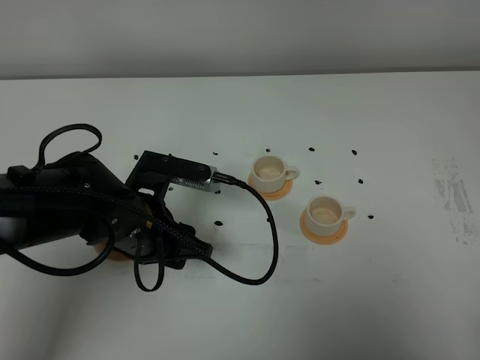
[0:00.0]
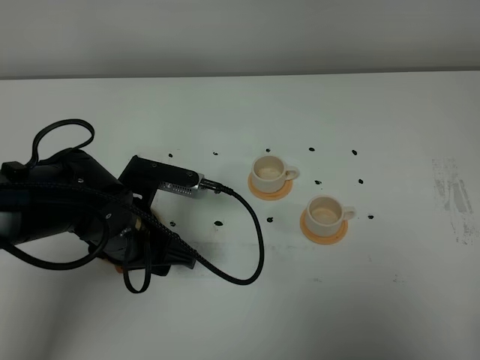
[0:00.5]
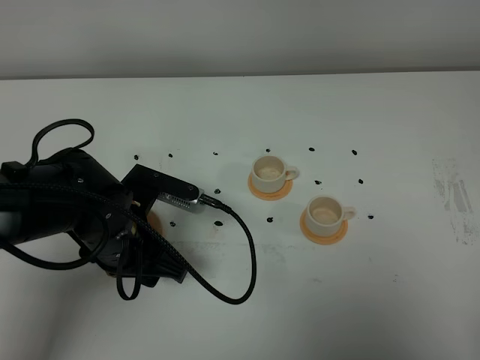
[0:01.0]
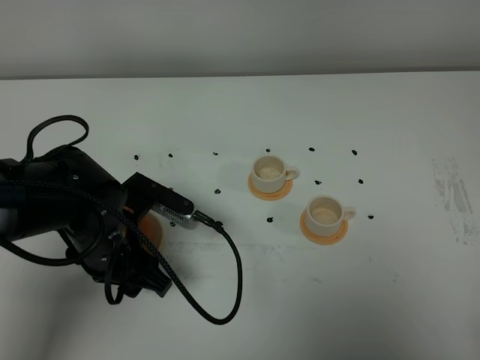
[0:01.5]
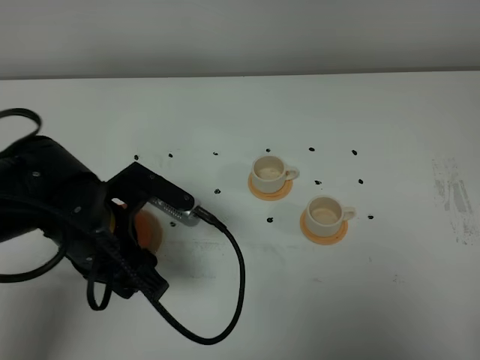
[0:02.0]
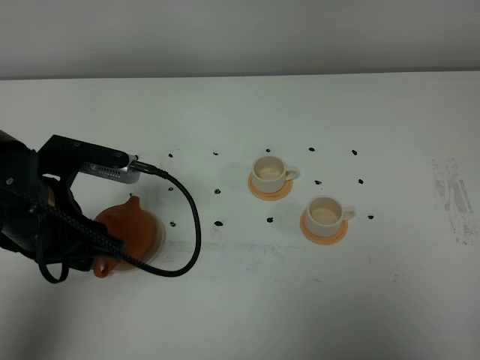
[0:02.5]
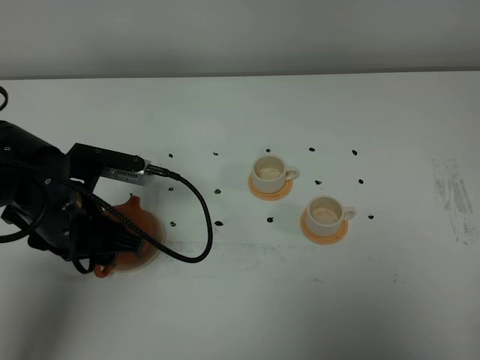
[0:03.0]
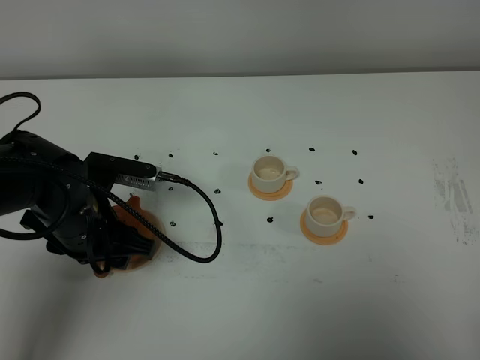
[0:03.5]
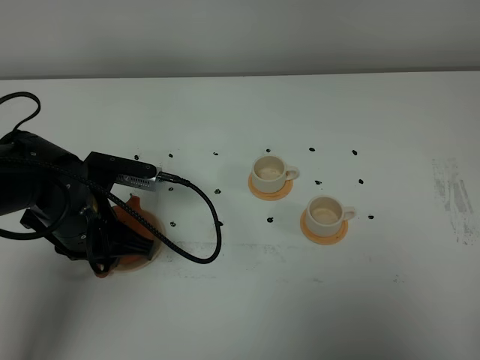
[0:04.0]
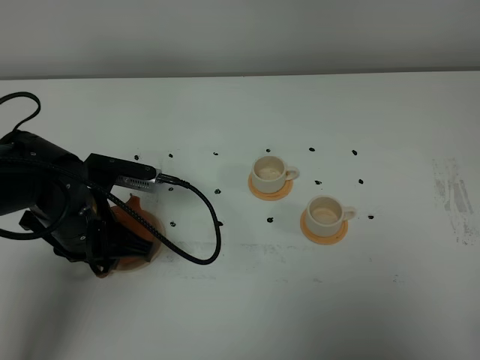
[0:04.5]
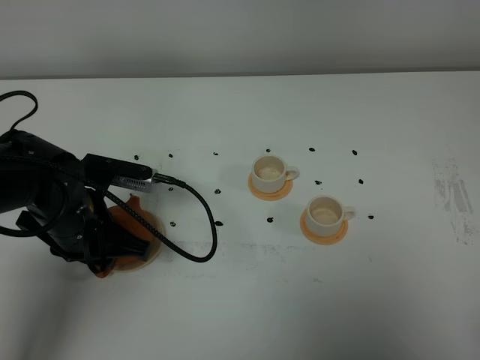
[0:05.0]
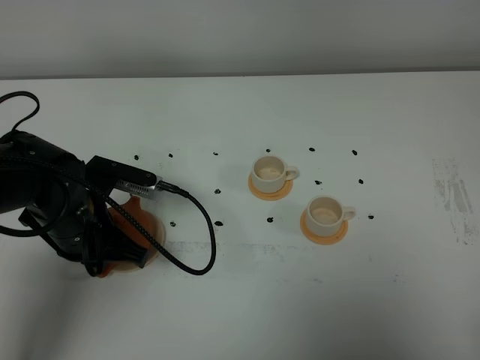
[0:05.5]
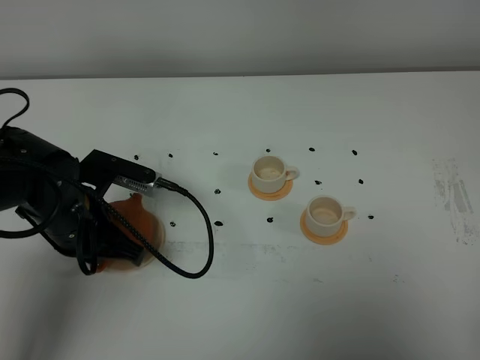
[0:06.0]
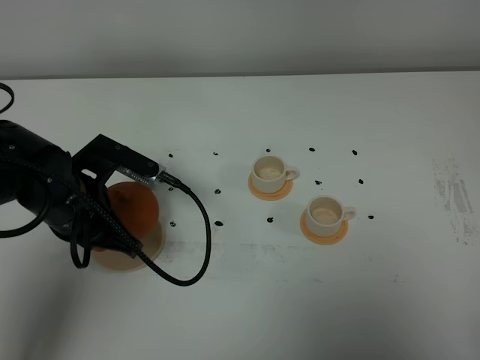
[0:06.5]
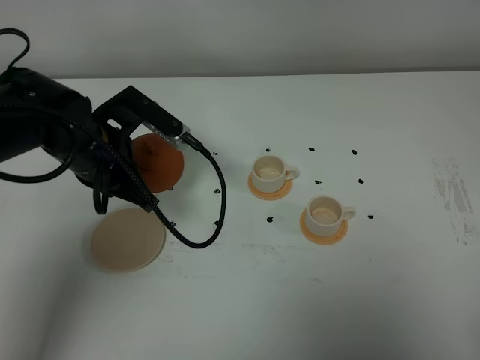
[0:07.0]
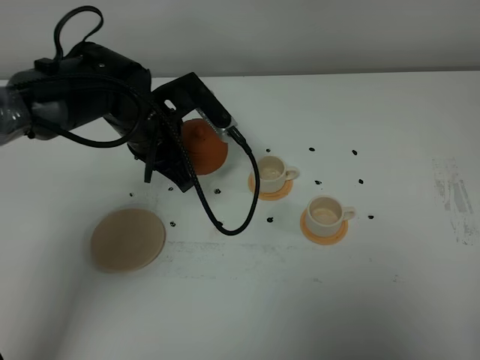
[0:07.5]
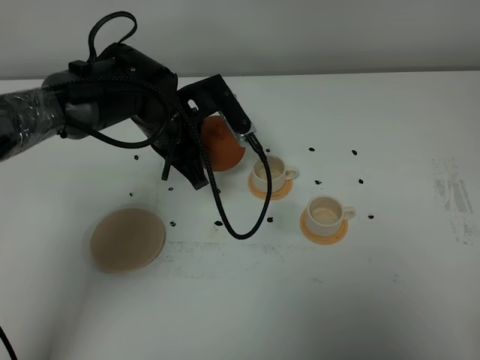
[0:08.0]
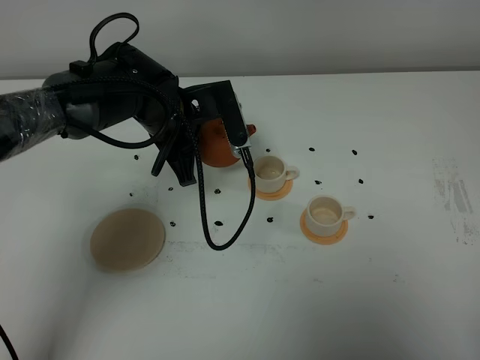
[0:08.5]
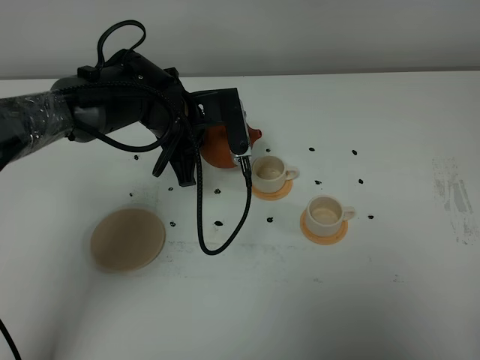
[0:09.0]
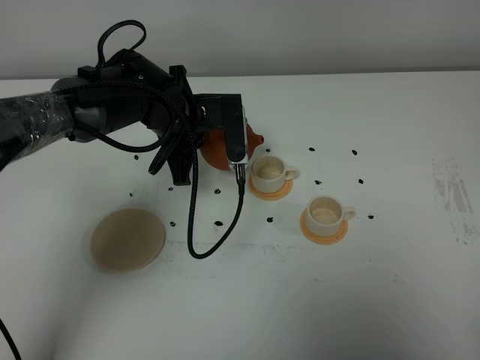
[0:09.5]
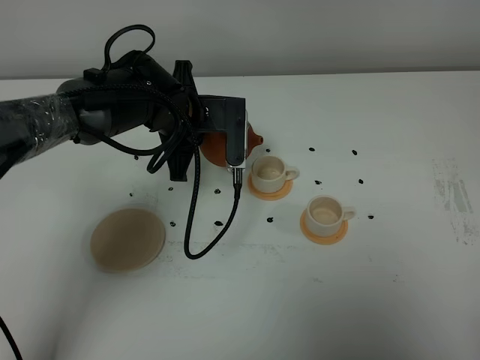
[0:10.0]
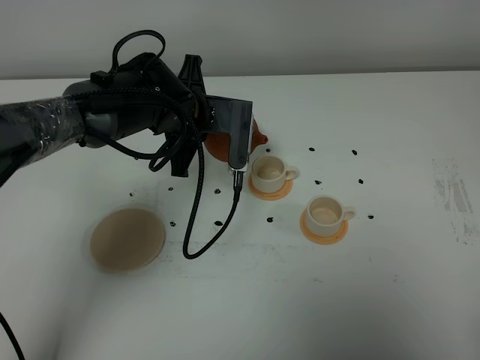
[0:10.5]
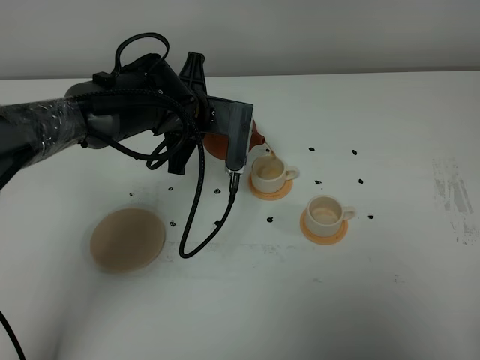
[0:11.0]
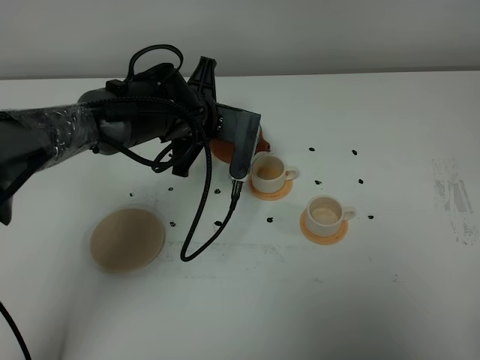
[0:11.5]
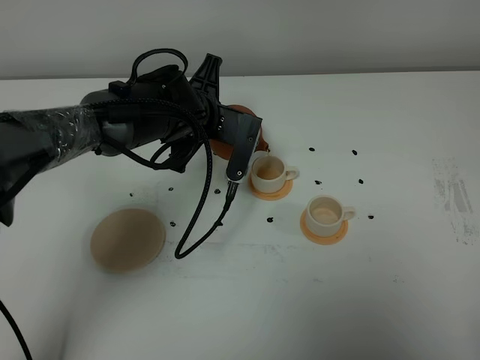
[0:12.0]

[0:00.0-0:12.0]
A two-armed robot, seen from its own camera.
Task of the whole recording: grasp the brown teapot and pour the tea into the two white teacups one by one, put the brown teapot back in its original place.
Step, 0:00.0 to 0:06.0: Pick up the teapot with the left gripper.
0:00.0 to 0:02.0: The left gripper ends up roughly 5 cm from where it was.
0:02.0 to 0:04.0: The left gripper shifts by some 10 cm, and closes.
0:04.0 to 0:06.0: The left gripper closes its fingers.
0:06.0 to 0:08.0: The left gripper travels forward and to the right by roughly 15 cm.
0:10.0 to 0:12.0: The grippers stay close to where they were, moving slightly.

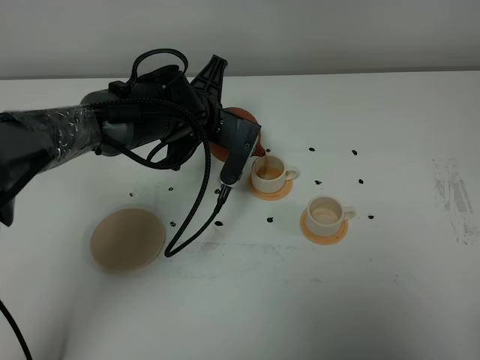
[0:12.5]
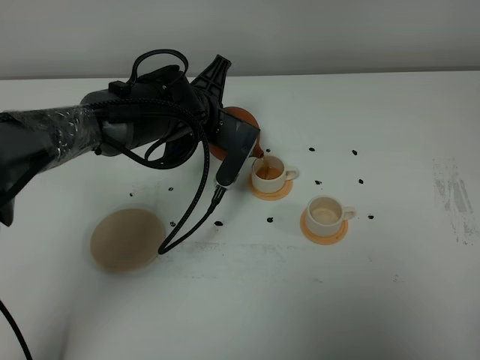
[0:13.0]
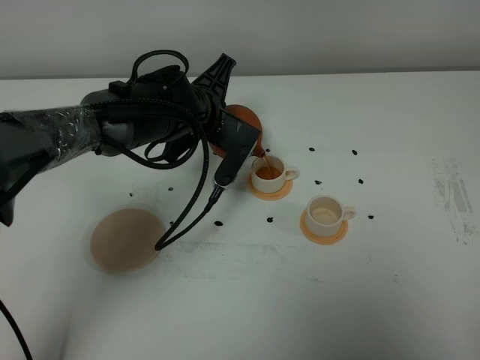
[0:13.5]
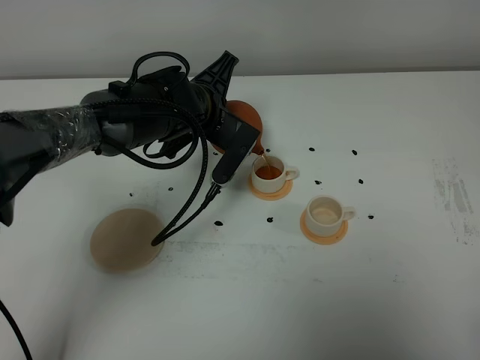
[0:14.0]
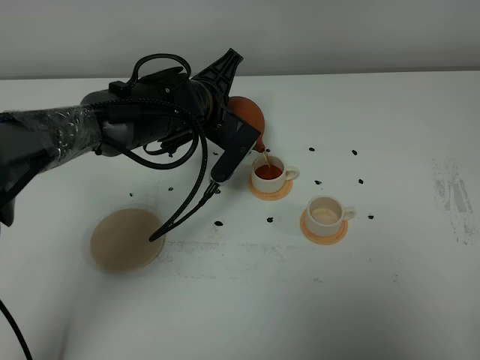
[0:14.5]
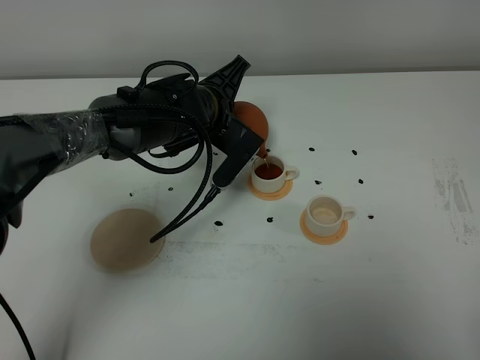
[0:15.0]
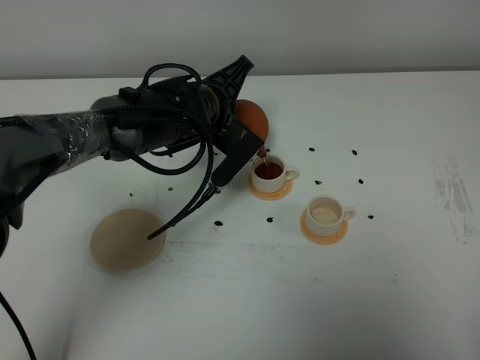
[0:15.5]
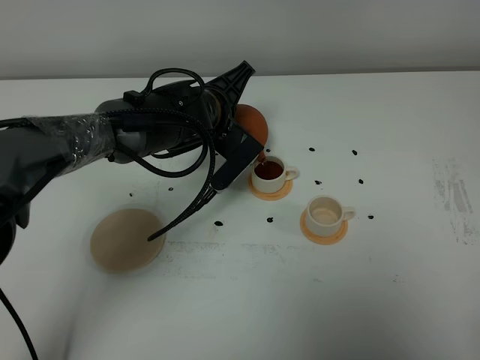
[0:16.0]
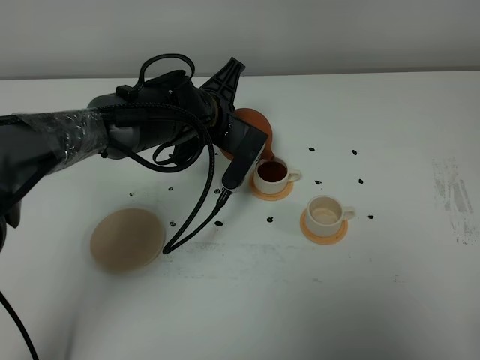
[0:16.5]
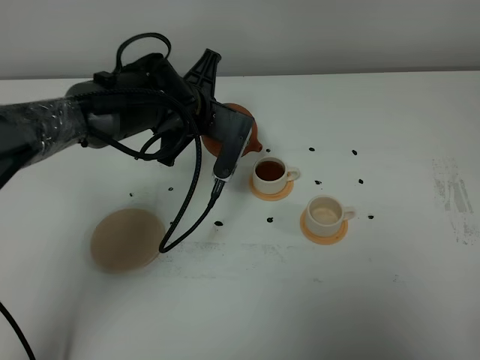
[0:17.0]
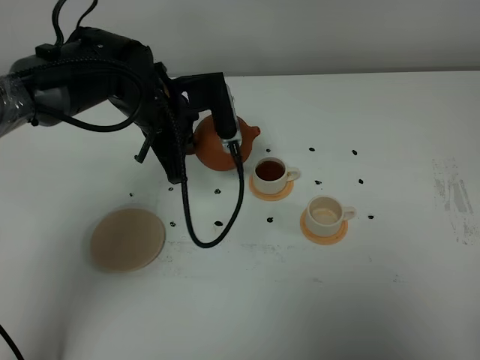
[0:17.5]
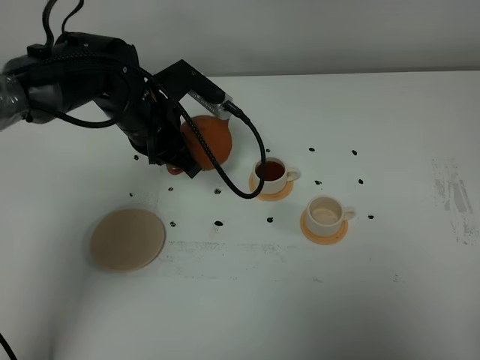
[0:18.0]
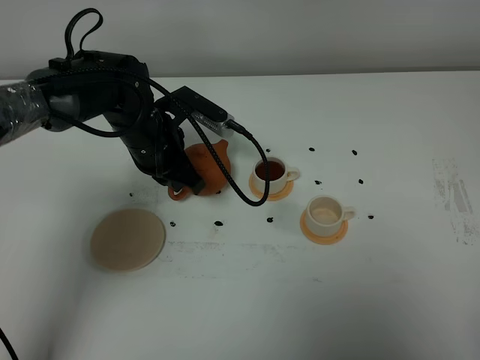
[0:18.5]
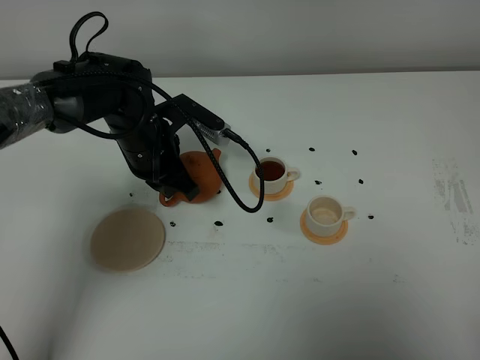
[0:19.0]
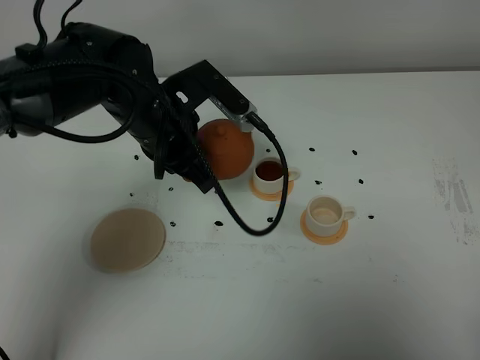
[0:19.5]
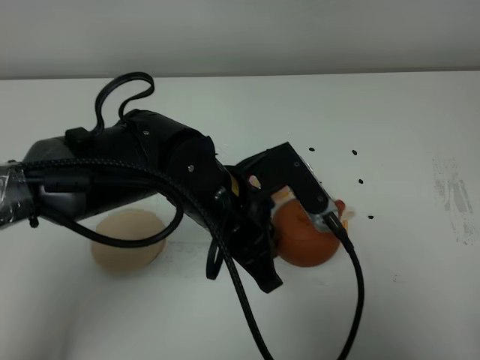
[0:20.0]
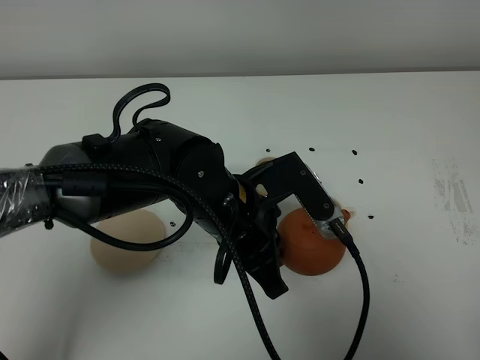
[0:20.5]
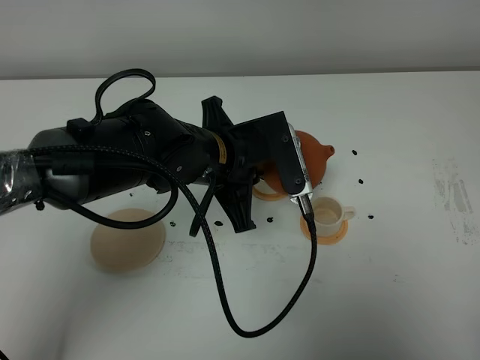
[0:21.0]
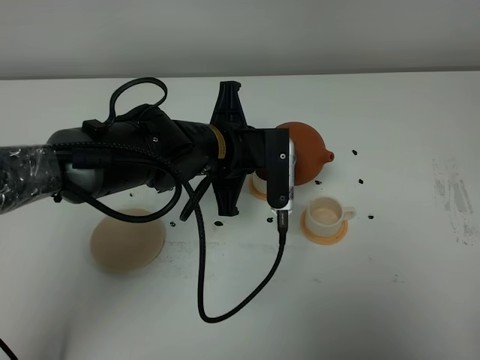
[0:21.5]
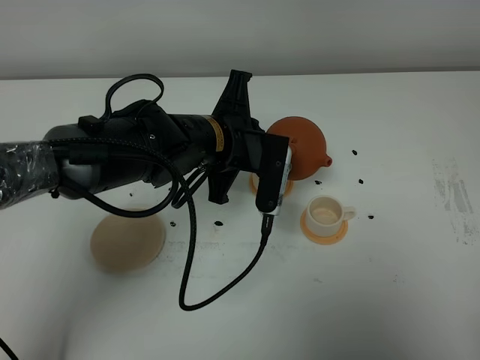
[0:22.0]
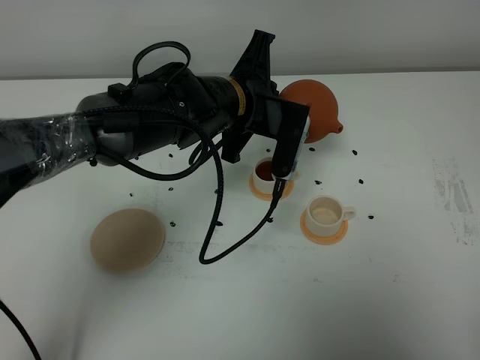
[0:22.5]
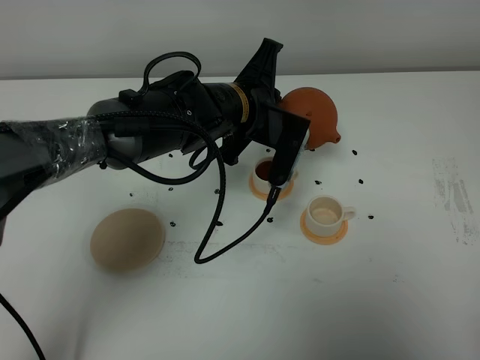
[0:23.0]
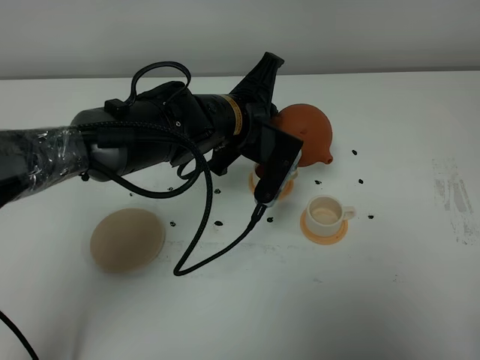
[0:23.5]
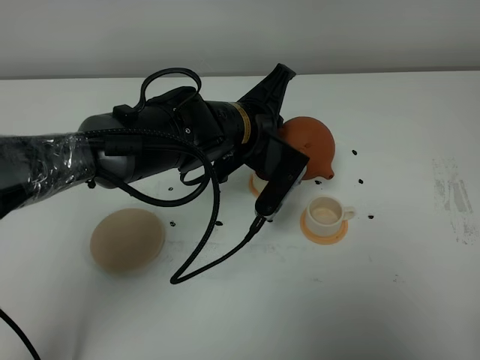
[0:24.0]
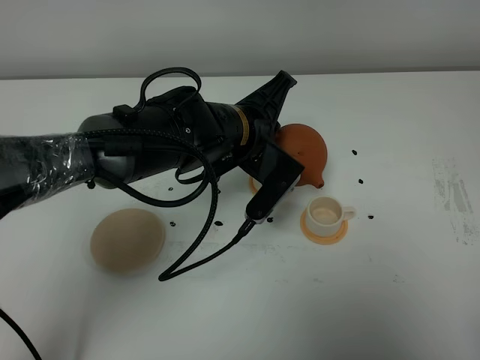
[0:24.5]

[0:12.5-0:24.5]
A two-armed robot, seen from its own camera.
Task of the whole recording: grasp the brown teapot and pour the tea into the two white teacups one by one, put the brown teapot back in its original place.
Step, 0:12.5 to 0:17.0: Pour tea into the teacup with the left gripper.
0:12.5 to 0:14.5: The grippers stay close to where they were, moving slightly.
0:14.5 to 0:16.5: There are only small adjustments of the grippers.
0:16.5 to 0:18.5: The left gripper goes approximately 5 cm to the left.
0:18.5 to 0:20.5: The left gripper moves backward and to the right, roughly 20 cm.
0:20.5 to 0:22.5: The left gripper shifts about 10 cm forward.

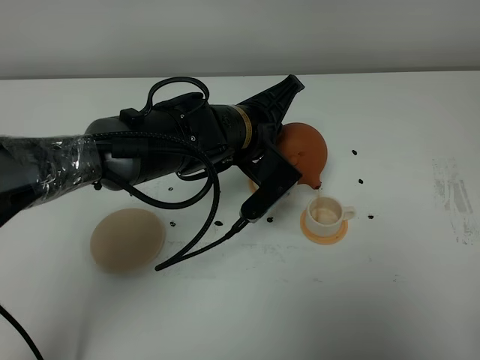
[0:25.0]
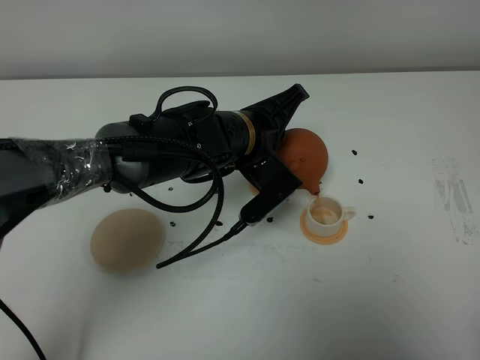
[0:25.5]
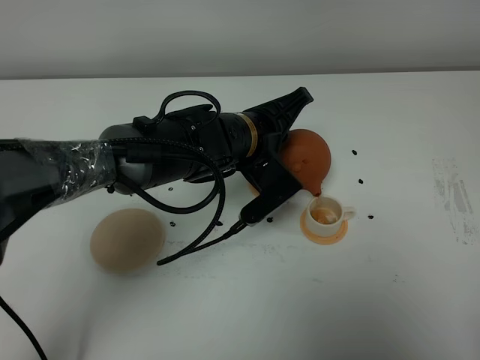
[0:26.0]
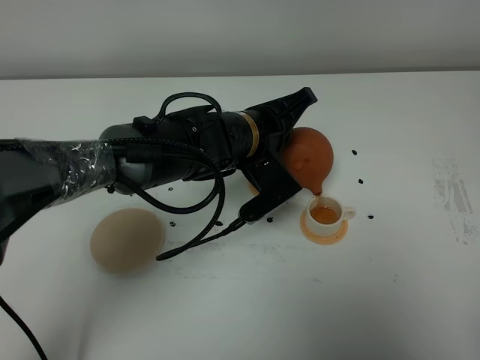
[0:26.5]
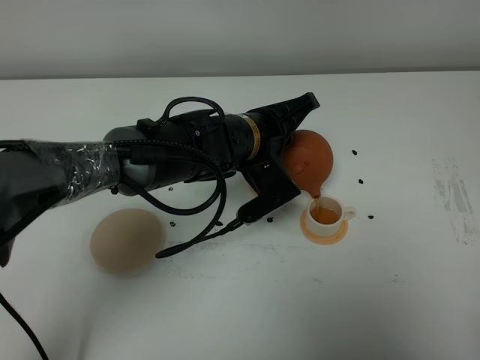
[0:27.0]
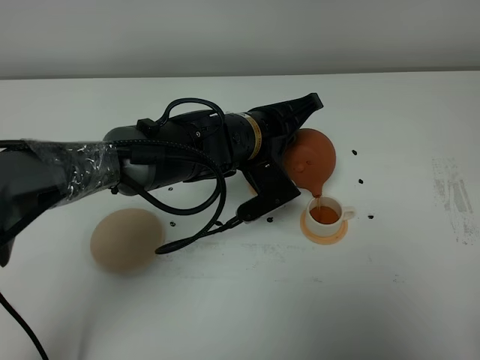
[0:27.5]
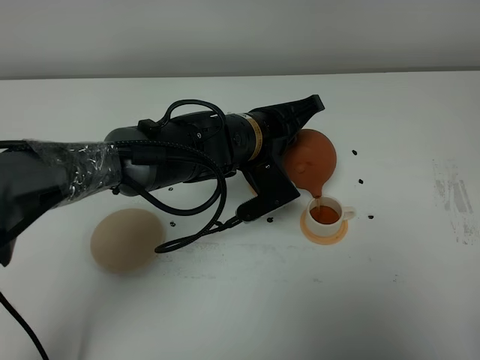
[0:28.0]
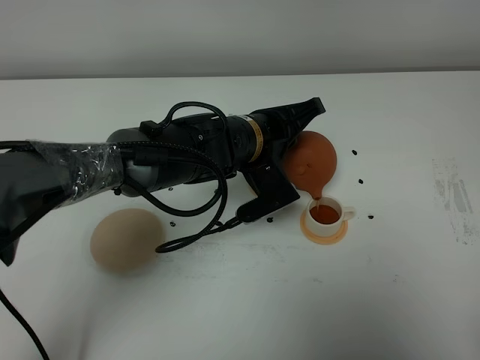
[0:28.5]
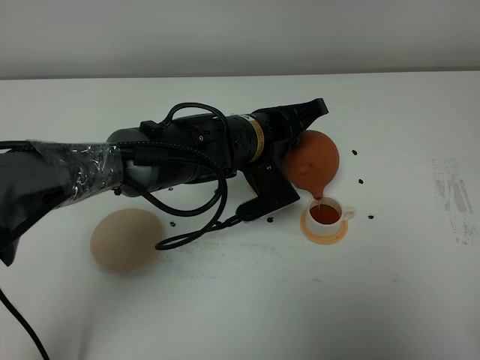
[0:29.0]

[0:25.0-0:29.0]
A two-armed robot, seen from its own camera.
Task of the whole recording: grasp the brown teapot and pour the tea into the two white teacups one by one, put the brown teapot back in its original place.
0:25.0 to 0:29.0: The grippers make only small movements.
